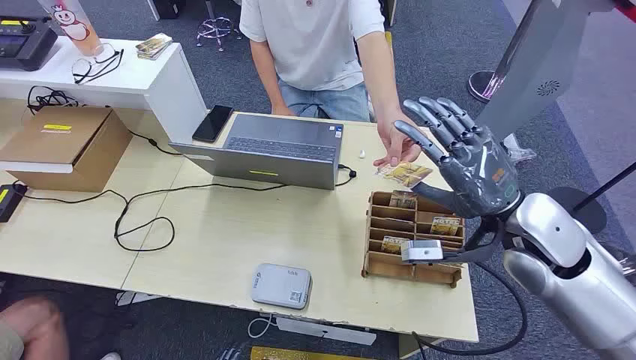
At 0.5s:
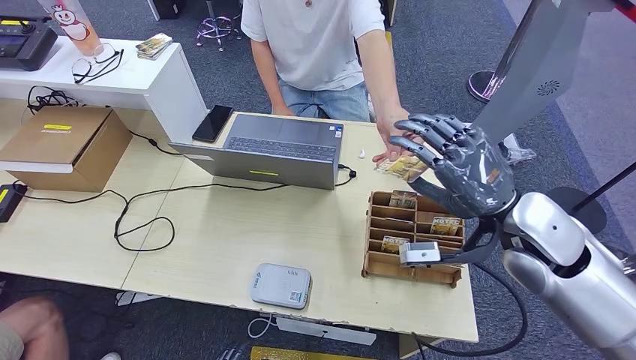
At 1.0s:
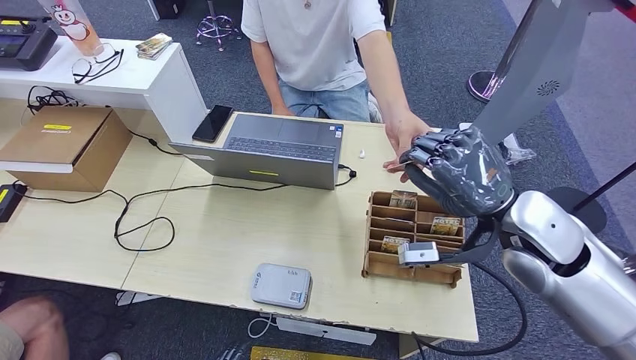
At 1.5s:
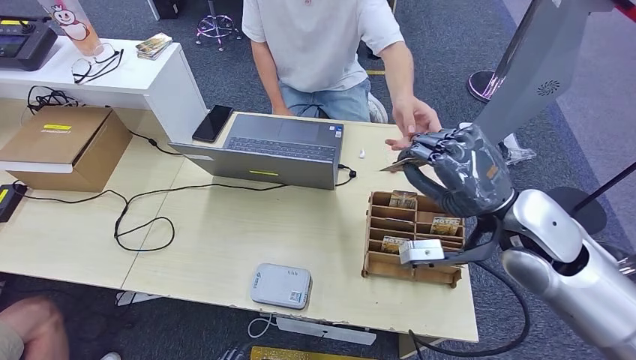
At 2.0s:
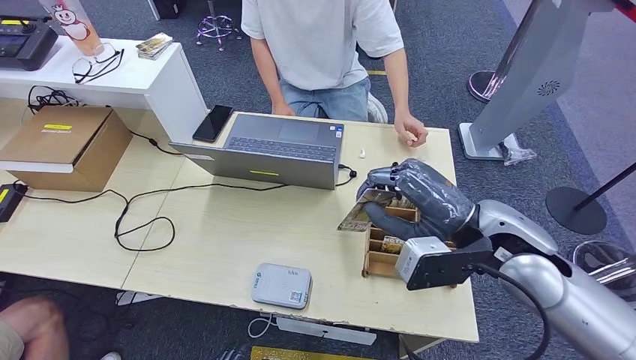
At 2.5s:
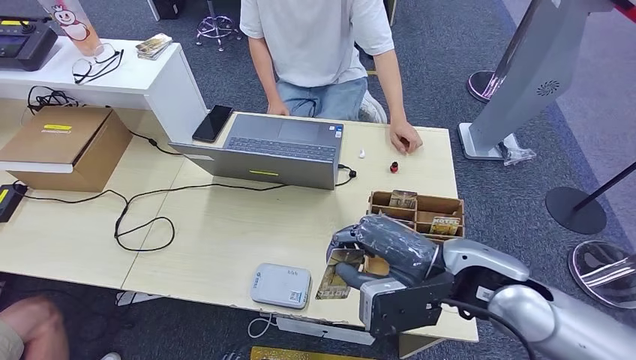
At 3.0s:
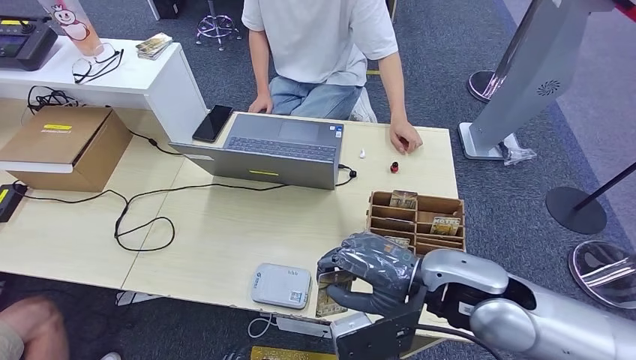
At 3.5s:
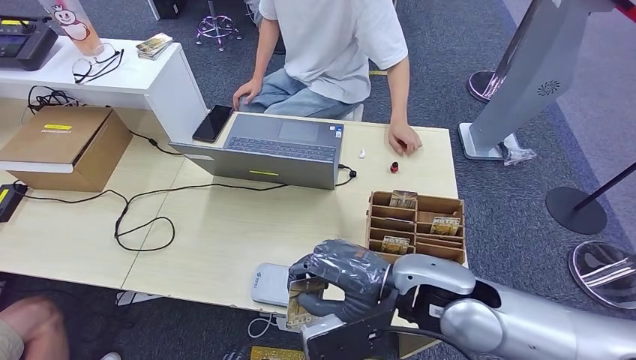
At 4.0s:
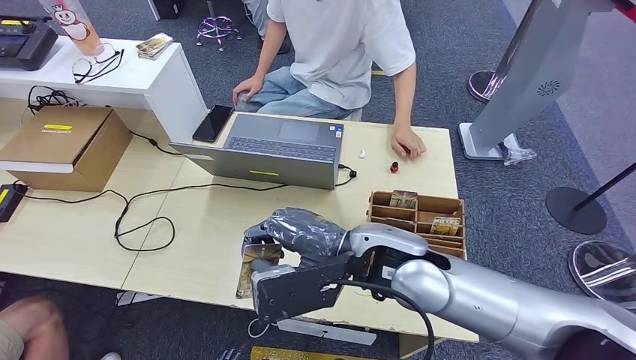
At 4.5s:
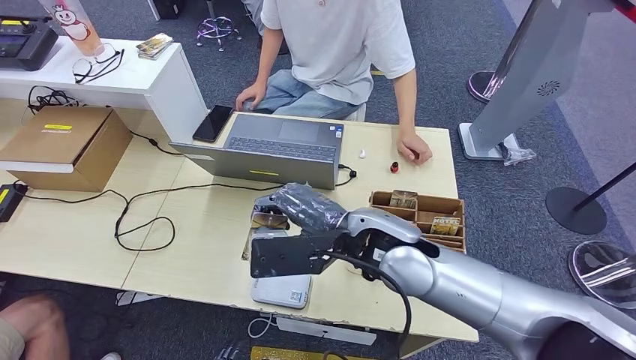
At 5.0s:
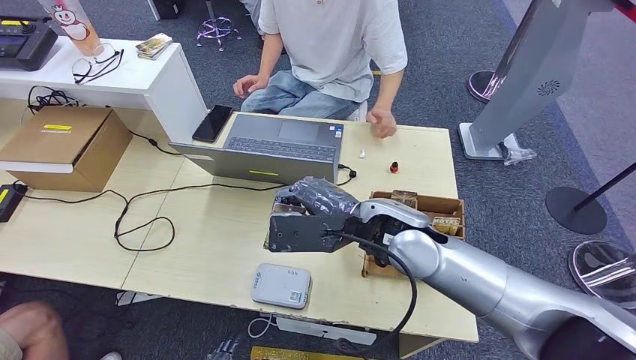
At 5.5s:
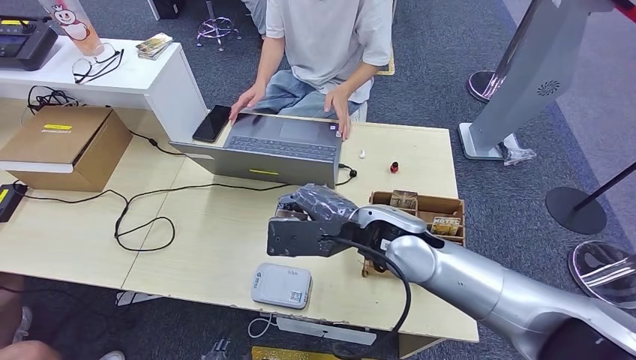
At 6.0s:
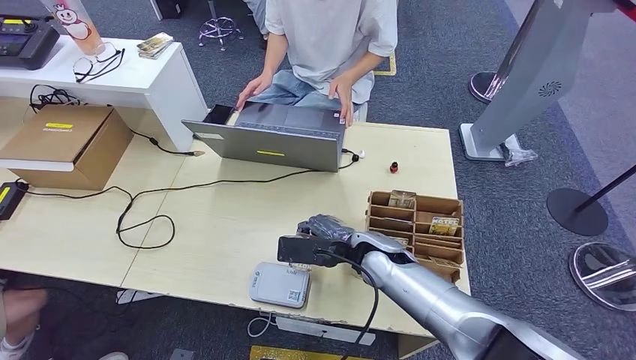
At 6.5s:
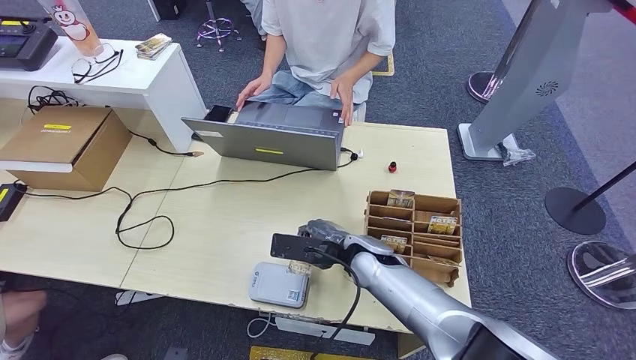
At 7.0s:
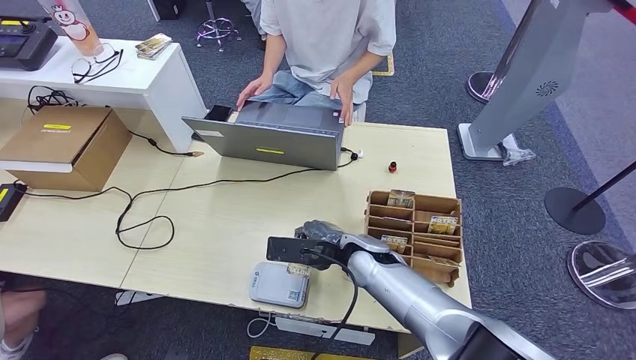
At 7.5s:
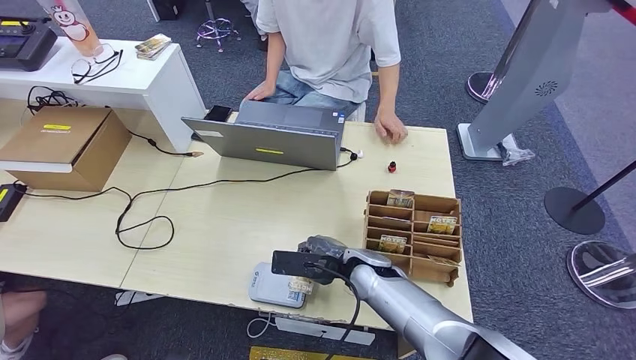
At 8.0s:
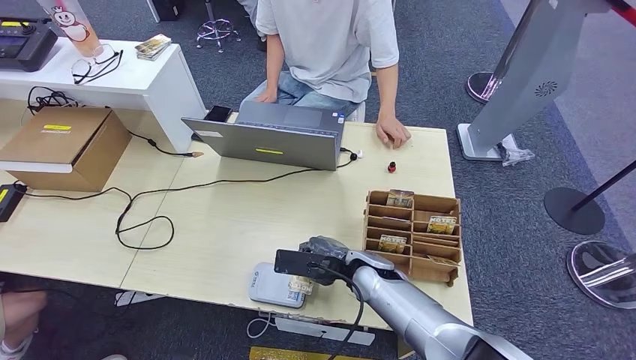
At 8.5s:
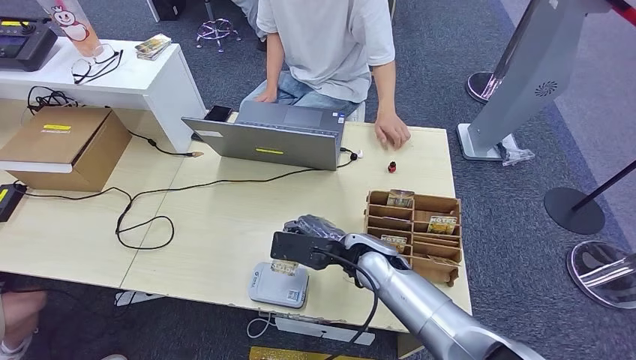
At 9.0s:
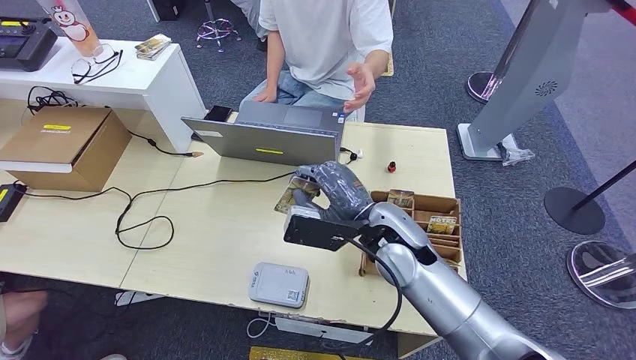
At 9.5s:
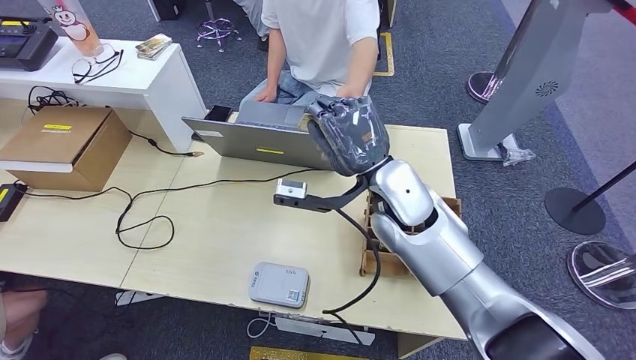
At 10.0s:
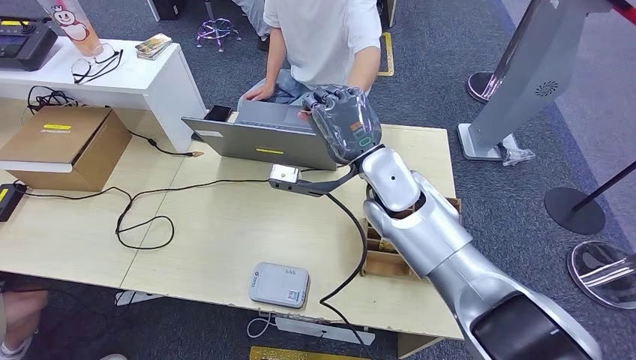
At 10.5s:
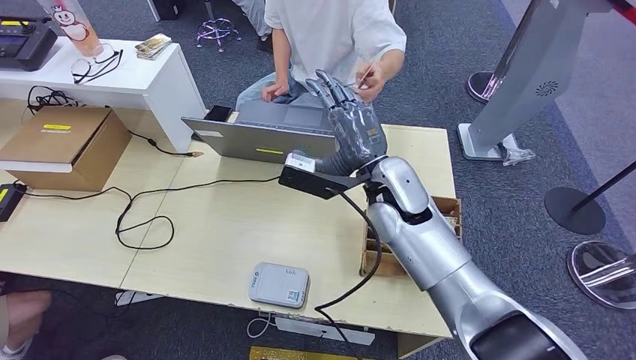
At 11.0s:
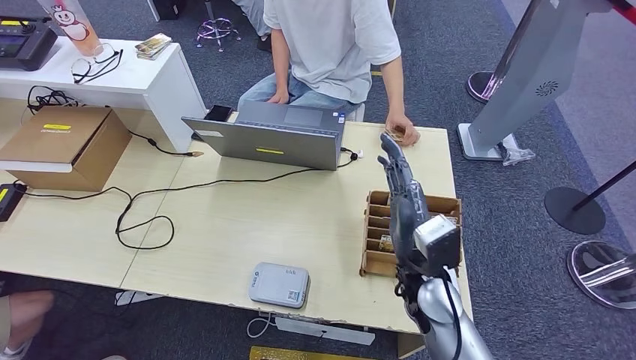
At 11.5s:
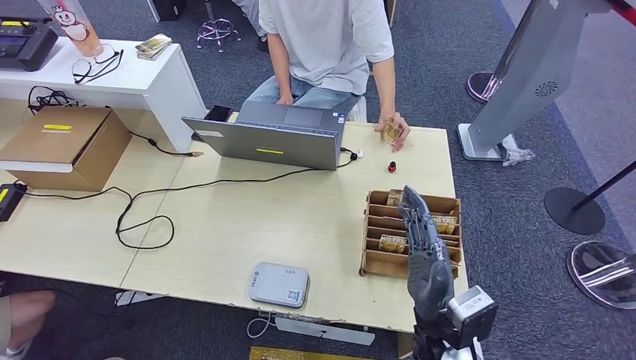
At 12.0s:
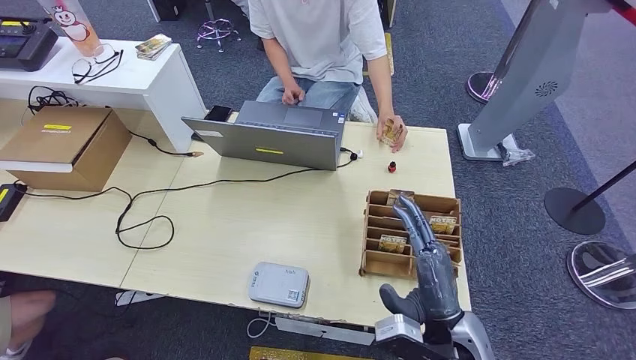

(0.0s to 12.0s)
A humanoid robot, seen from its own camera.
Step, 0.0s - 1.0s: Take the ID card from the person's hand.
Step, 1.5s - 7.5s: Place the ID card on the card reader.
Step, 8.0s - 10.5s: Hand the ID card to the person.
6.0s - 8.0s: The right hand moves some 5 cm.
8.0s - 10.0s: The right hand goes roughly 20 cm upward.
10.0s - 12.0s: The right hand is displaced backward, downward and to the right by approximately 25 cm.

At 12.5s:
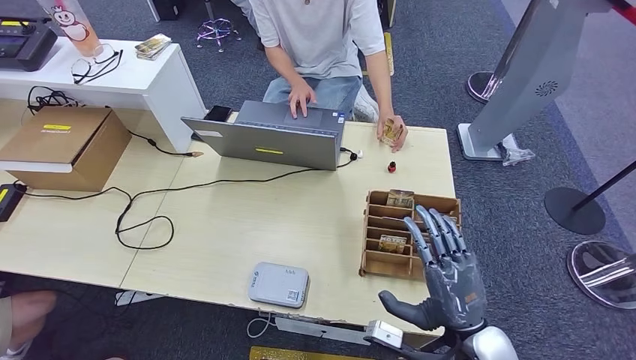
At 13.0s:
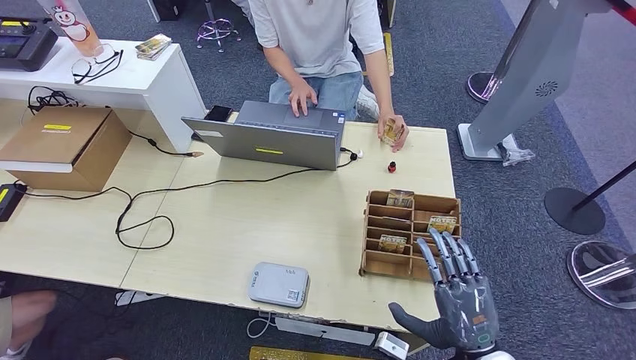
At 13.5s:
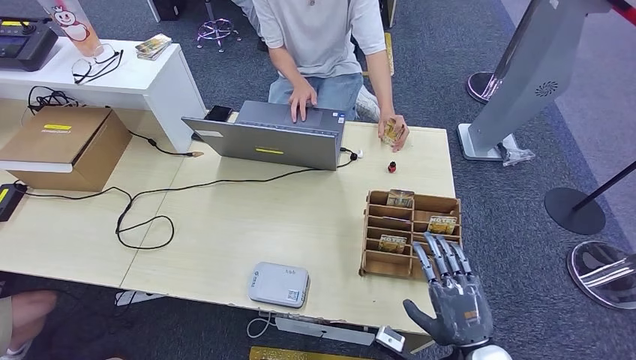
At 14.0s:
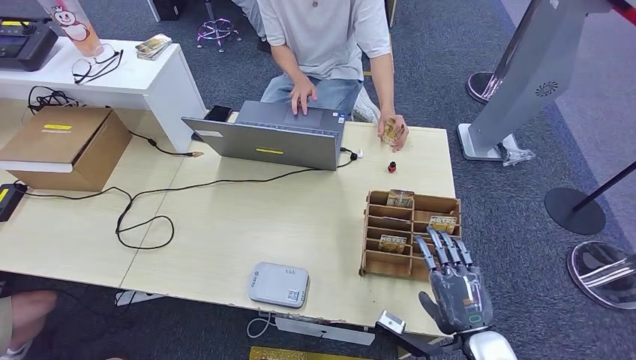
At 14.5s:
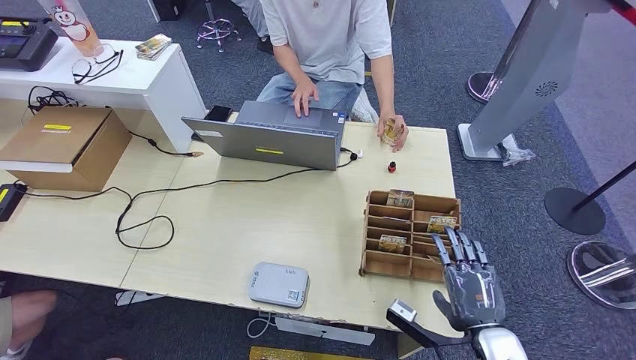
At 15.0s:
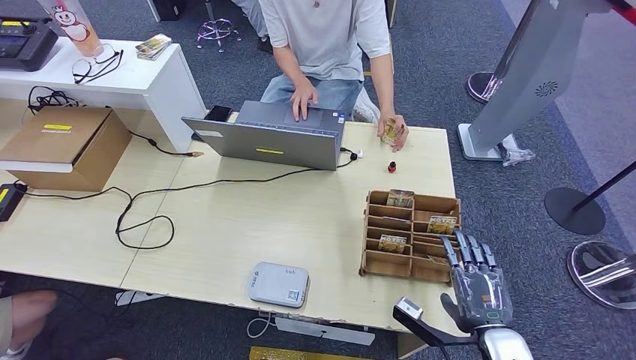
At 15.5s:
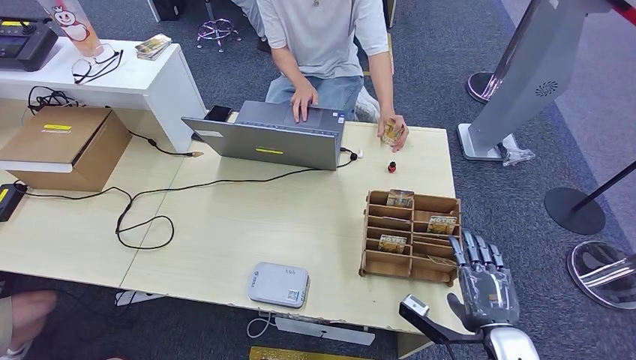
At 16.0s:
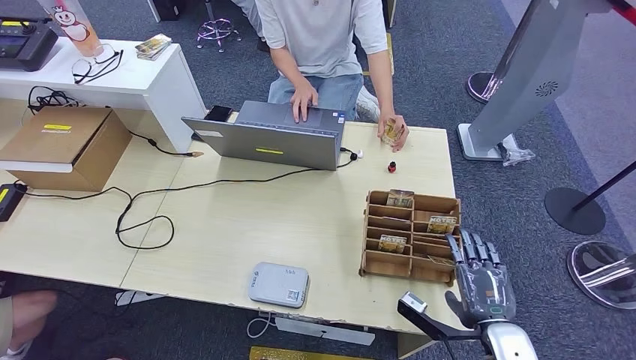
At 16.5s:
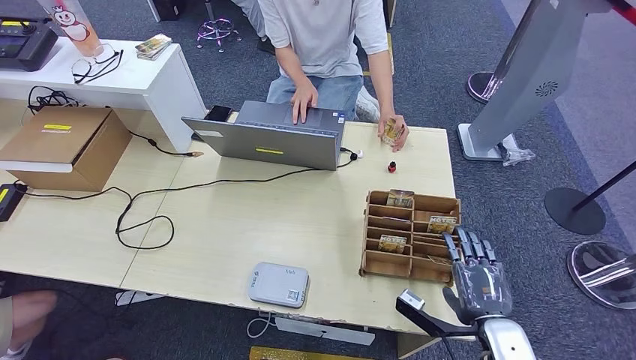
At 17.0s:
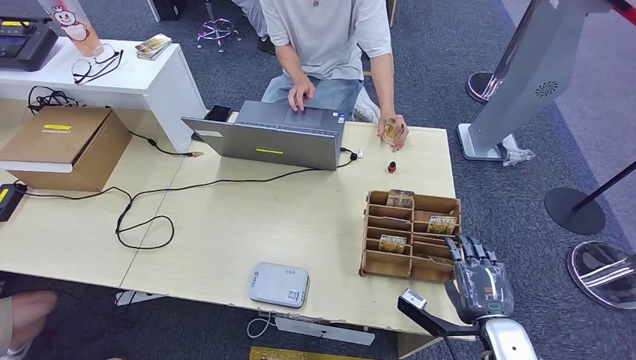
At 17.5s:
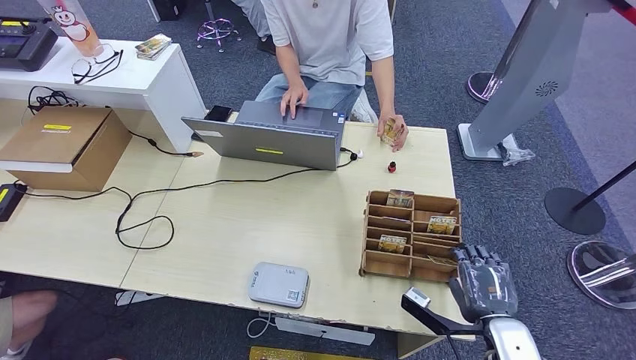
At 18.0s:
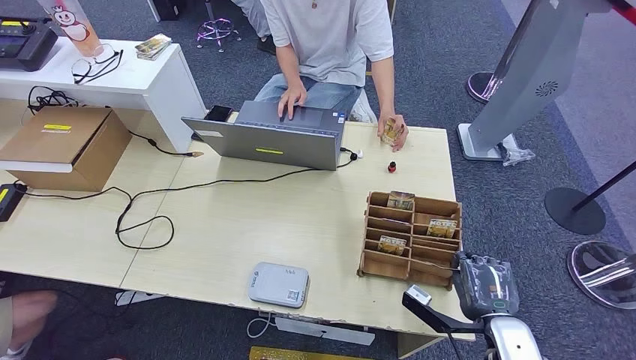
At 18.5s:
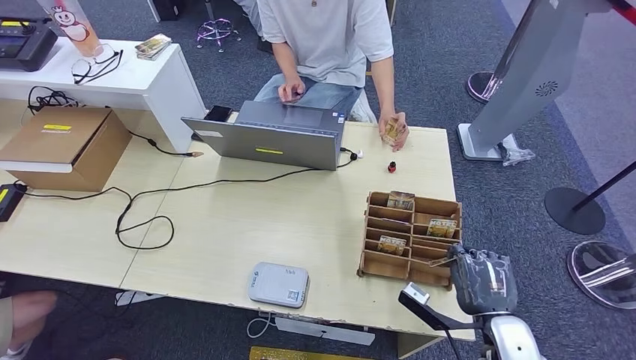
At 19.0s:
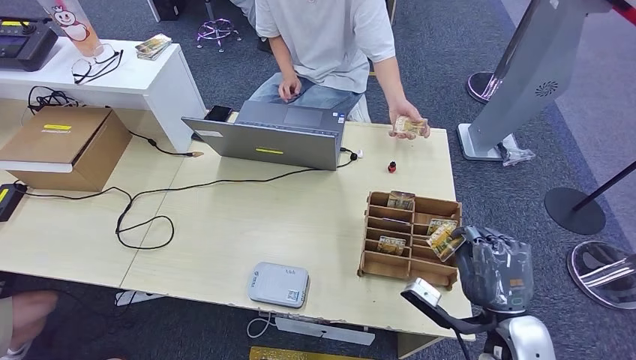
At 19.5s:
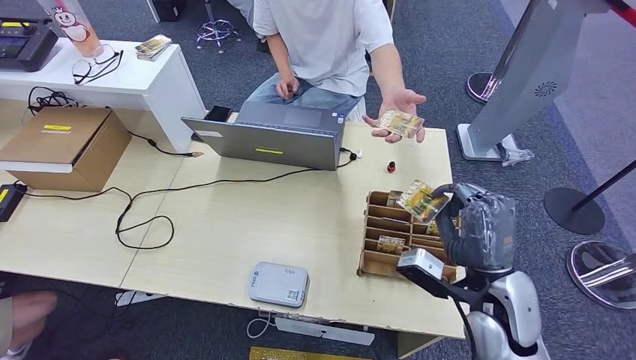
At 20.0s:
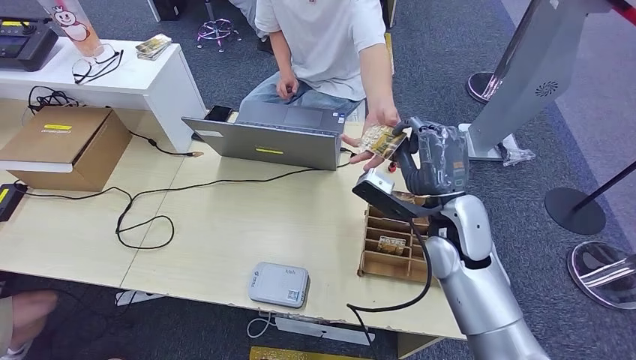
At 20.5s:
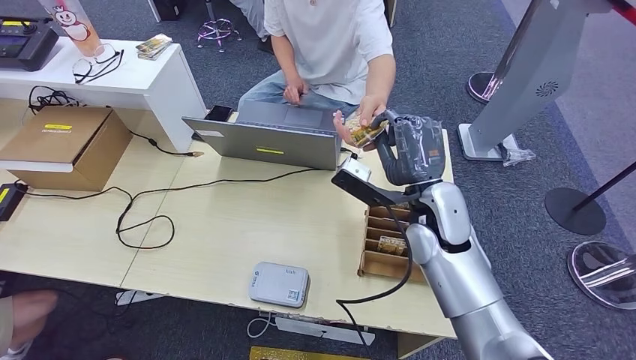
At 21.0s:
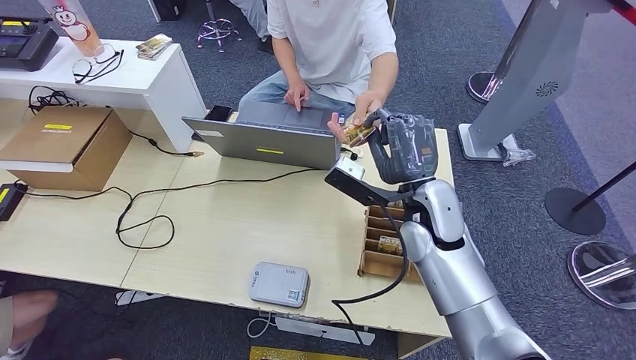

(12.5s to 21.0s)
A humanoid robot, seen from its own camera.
Step, 12.5s - 19.5s: Pick up the room key from the key card box.
Step, 20.0s - 21.0s: Hand the room key to the person.
12.5s - 14.5s: The right hand ends up roughly 5 cm from where it was.
14.5s - 16.5s: The hands stay close to where they were, moving slightly.
19.0s - 21.0s: The right hand heads forward, to the left and upward, covering some 25 cm.
